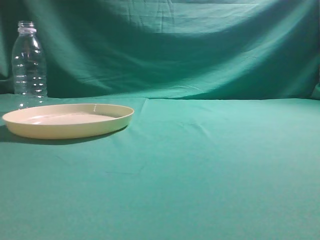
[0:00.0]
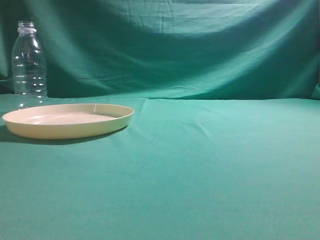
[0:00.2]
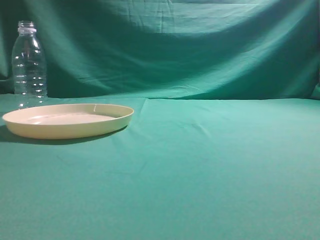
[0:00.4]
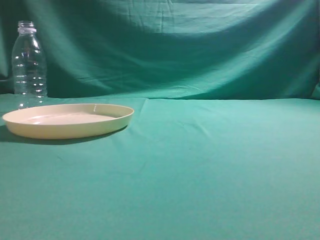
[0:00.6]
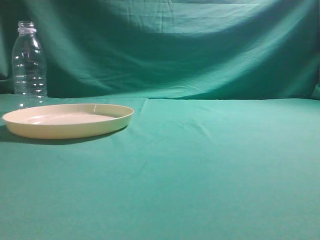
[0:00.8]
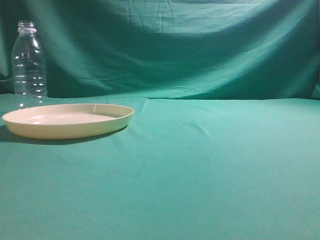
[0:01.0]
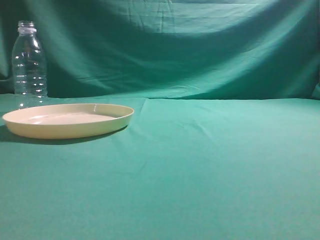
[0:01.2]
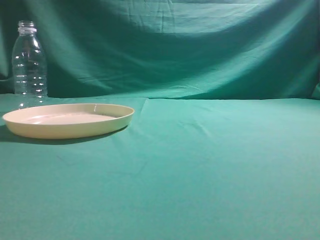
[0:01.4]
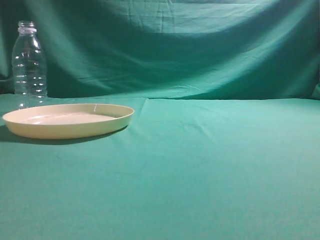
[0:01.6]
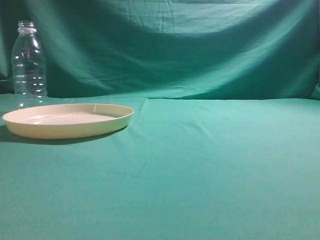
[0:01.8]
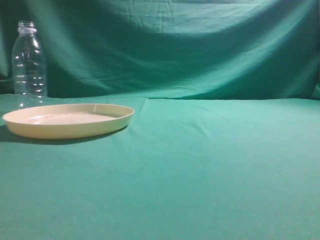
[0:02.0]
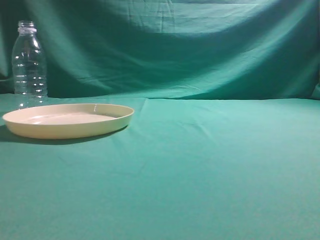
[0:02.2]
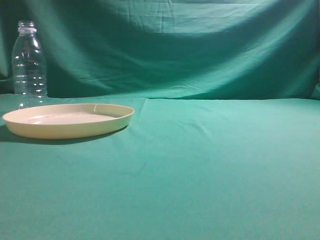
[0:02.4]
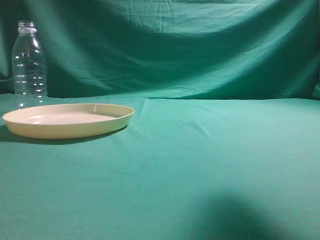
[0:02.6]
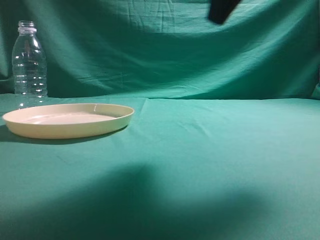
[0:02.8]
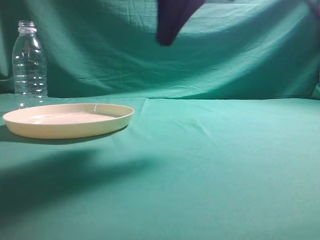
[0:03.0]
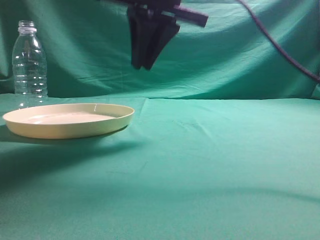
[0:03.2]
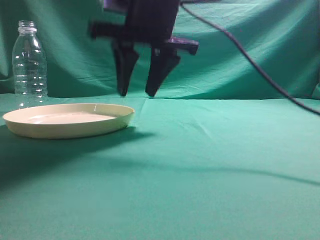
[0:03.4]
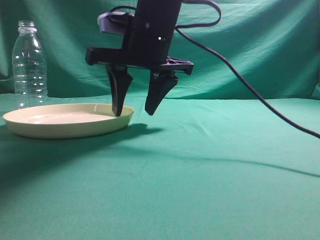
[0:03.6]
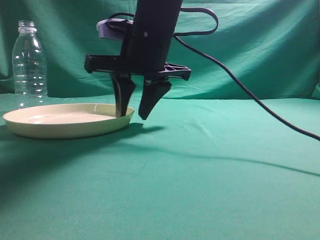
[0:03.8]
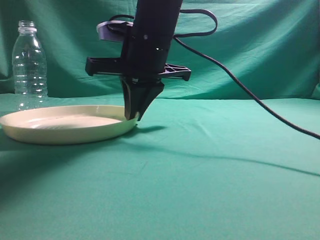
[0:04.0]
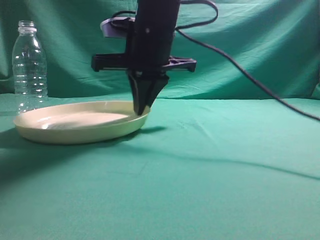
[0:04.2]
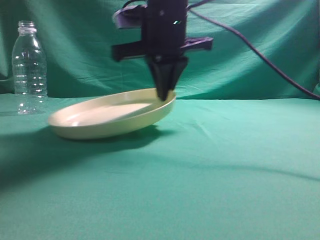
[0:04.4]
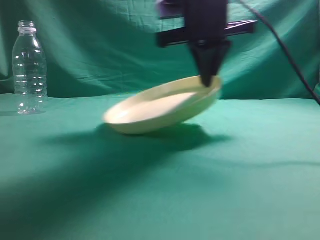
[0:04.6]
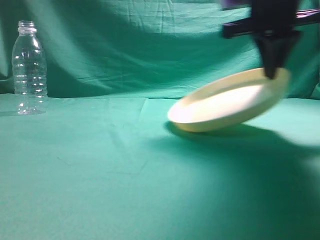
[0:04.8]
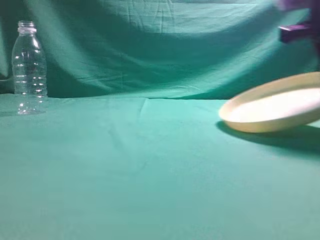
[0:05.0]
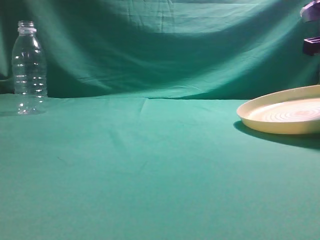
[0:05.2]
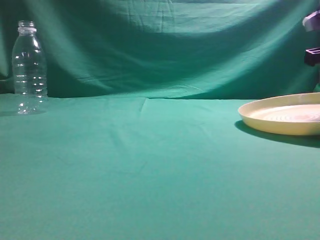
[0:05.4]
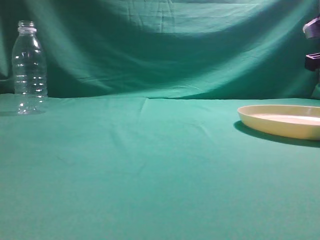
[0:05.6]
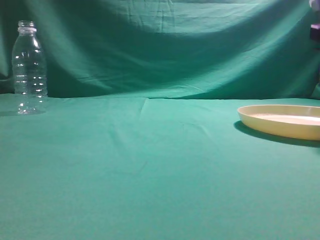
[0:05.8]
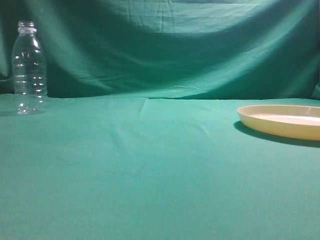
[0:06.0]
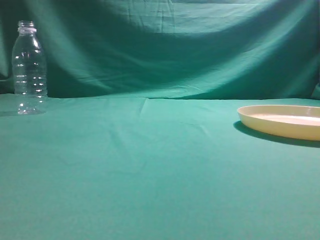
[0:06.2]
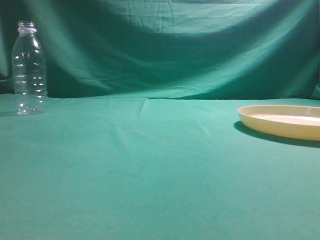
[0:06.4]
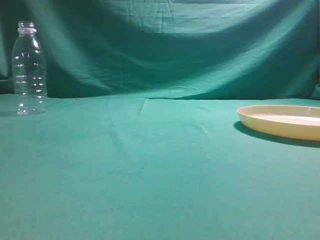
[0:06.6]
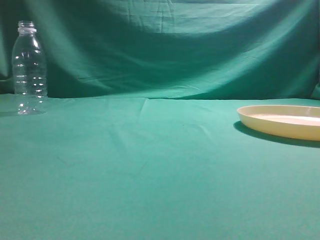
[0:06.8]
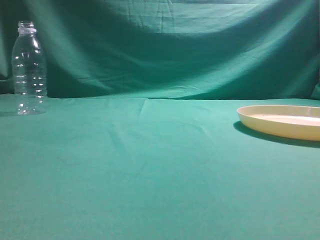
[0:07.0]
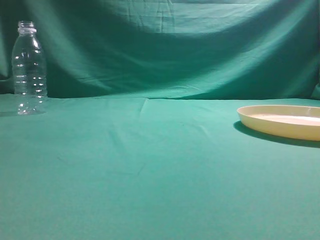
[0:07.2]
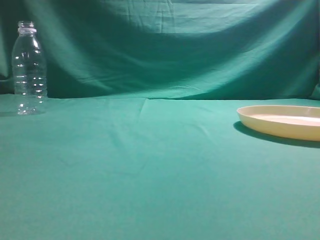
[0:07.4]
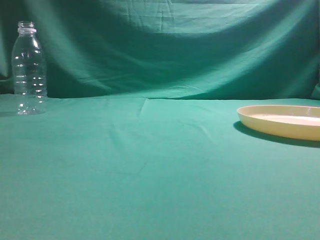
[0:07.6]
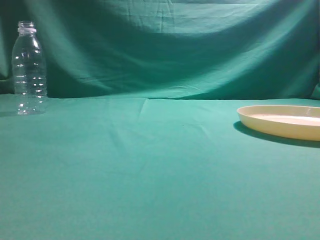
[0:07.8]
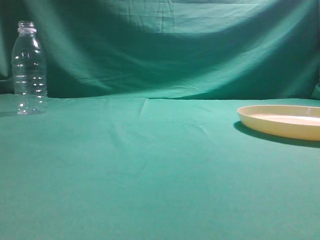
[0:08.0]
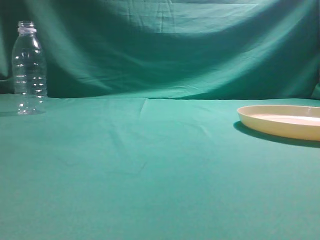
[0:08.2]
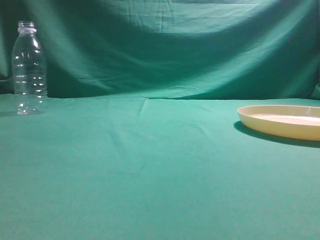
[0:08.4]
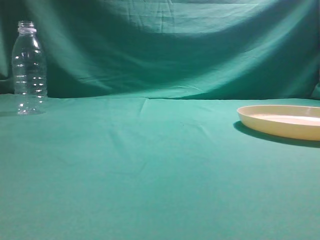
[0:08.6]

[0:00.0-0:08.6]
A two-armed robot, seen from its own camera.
Step, 0:00.0 to 0:04.4: Pick the container that can hold fruits.
Step, 0:04.6 to 0:06.4: Move the picked object to the right side of the table.
0:01.4 to 0:02.8: The right gripper goes roughly 25 cm forward, upward and to the left.
0:02.8 to 0:04.4: The right gripper is displaced to the left, forward and downward by roughly 25 cm, and opens, then closes once more.
0:04.4 to 0:05.8: The right gripper is displaced to the right by roughly 30 cm, and opens up.

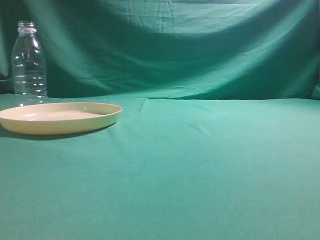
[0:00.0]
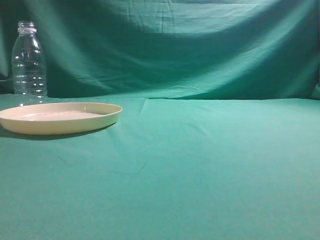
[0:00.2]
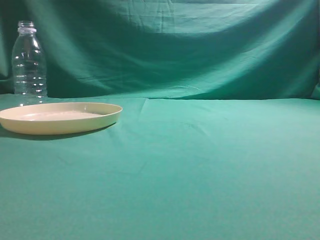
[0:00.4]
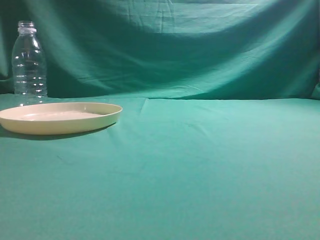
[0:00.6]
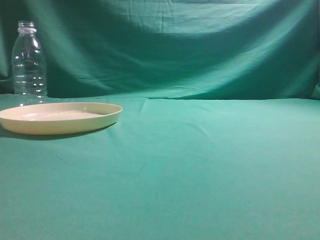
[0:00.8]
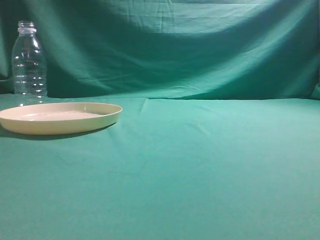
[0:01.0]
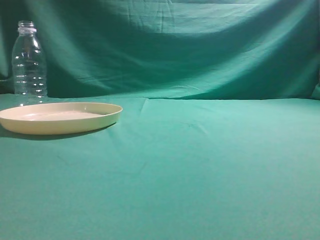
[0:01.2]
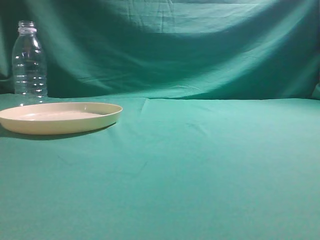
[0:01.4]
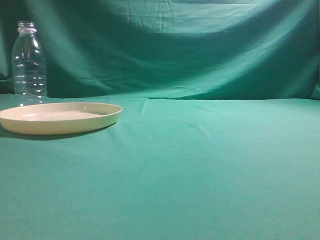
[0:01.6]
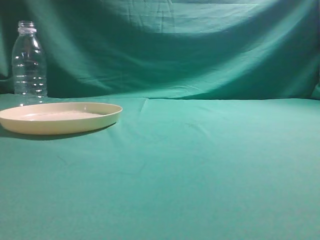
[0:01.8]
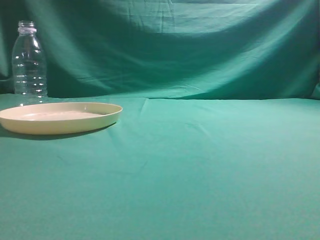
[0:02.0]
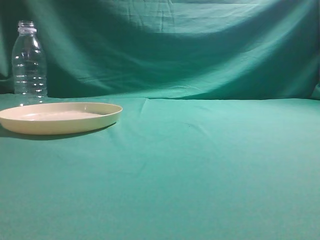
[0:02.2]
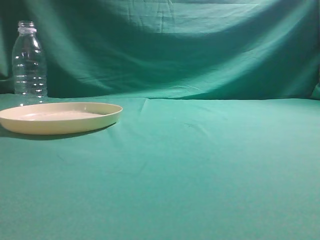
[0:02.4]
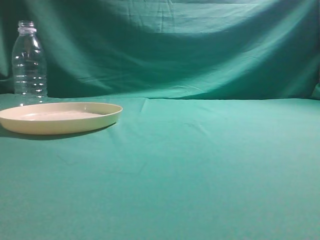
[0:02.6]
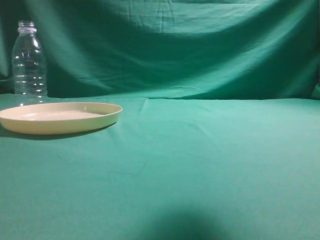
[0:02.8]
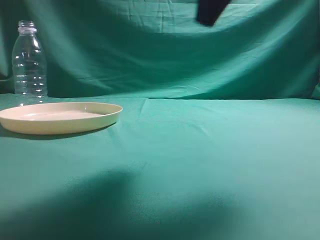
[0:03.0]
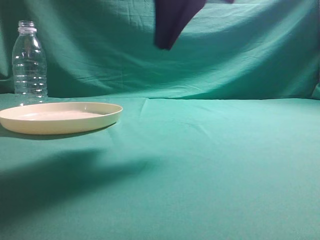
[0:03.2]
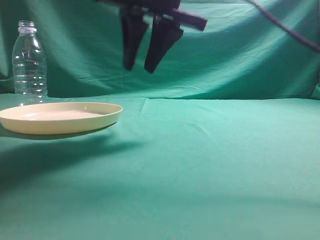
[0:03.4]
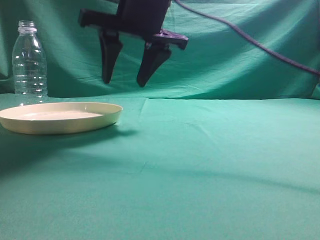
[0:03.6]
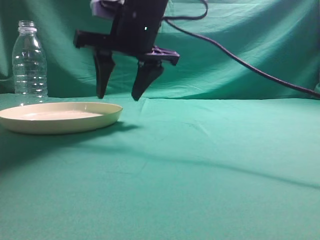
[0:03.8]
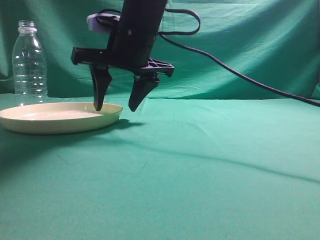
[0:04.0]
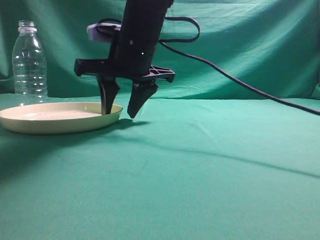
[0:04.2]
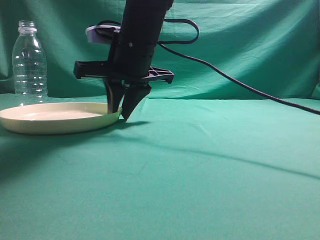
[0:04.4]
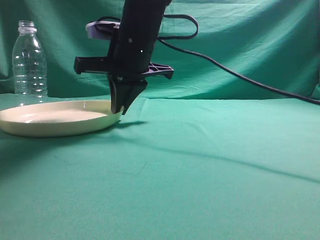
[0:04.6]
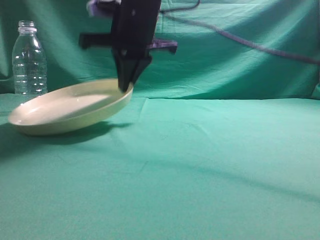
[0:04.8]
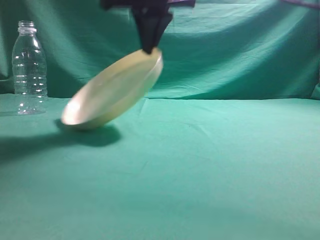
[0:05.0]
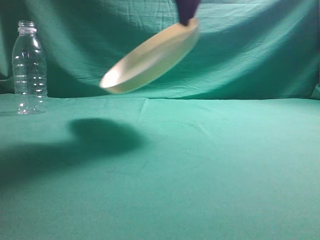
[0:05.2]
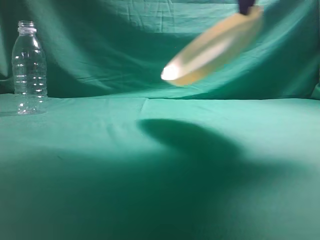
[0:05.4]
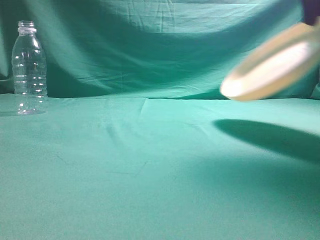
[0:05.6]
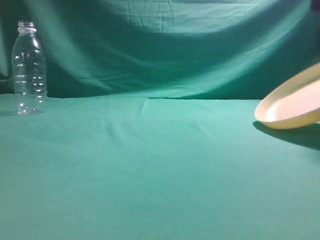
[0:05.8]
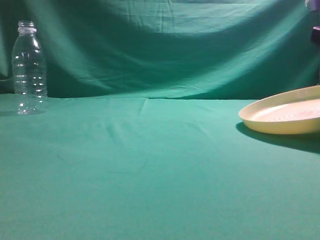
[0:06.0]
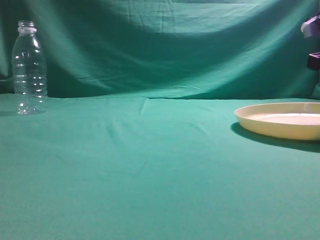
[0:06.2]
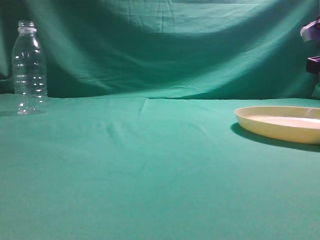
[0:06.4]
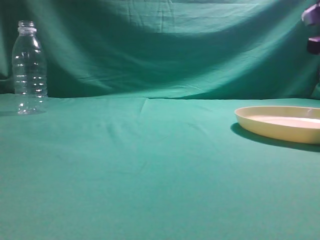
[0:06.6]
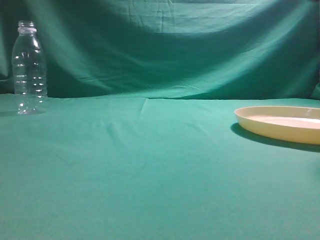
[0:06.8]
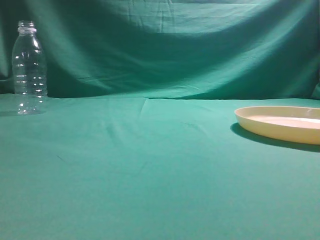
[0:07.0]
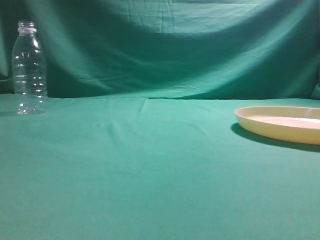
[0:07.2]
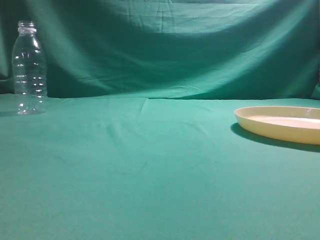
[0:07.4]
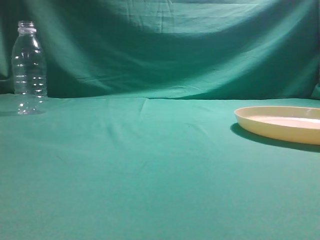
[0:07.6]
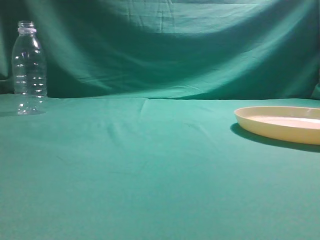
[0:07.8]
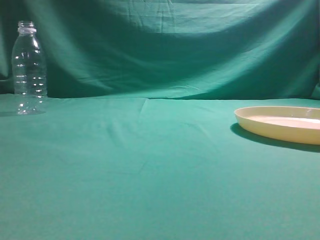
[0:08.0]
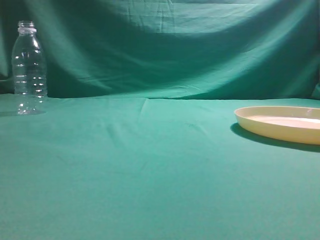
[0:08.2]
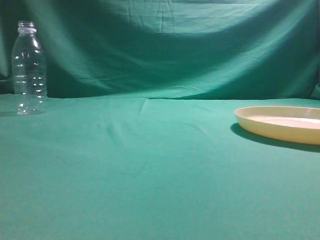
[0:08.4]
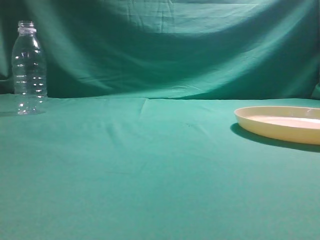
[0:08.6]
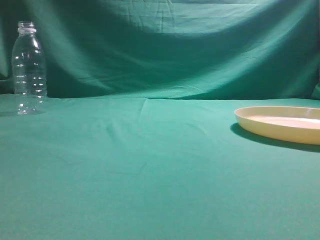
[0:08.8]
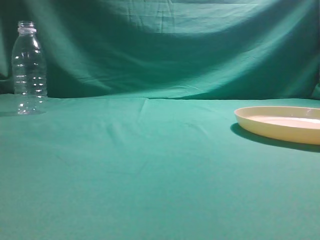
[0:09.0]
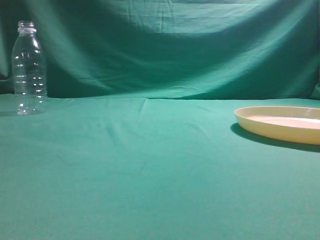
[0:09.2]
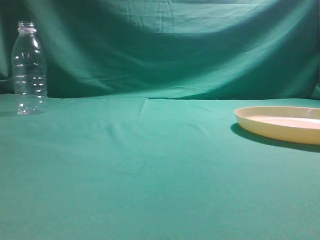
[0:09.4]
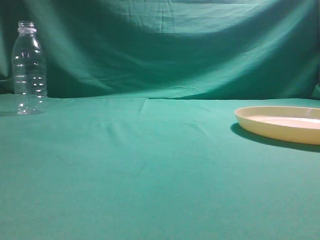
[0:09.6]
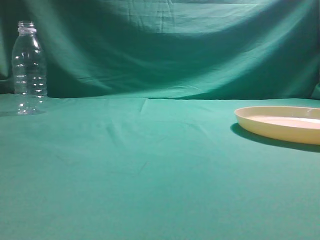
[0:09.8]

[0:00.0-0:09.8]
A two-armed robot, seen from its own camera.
Step, 0:00.0 to 0:05.0: Pick the container that can hold fruits.
Step, 0:05.2 to 0:06.8: Move the picked object to the right side of the table.
0:01.4 to 0:02.8: The right gripper heads forward, upward and to the left, covering about 20 cm.
0:02.8 to 0:04.2: The right gripper shifts approximately 30 cm to the left, forward and downward, and opens.
0:04.2 to 0:05.6: The right gripper heads to the right and upward, covering some 25 cm, and closes.
0:05.6 to 0:07.0: The right gripper is displaced to the right and backward by some 10 cm, reaches approximately 15 cm downward, then returns, and opens, then closes again.
